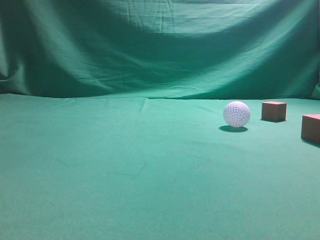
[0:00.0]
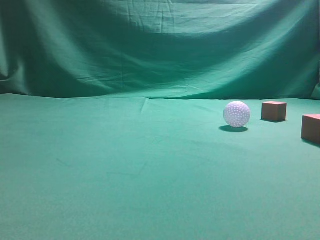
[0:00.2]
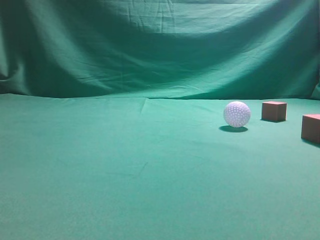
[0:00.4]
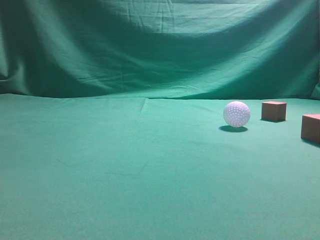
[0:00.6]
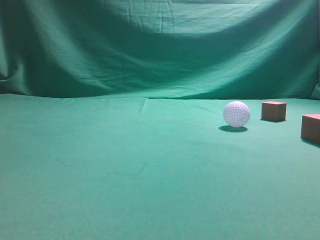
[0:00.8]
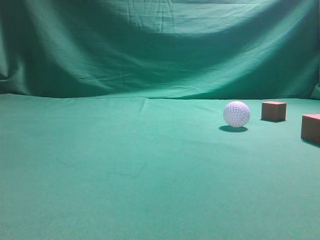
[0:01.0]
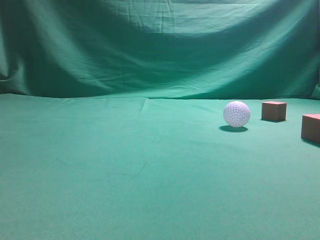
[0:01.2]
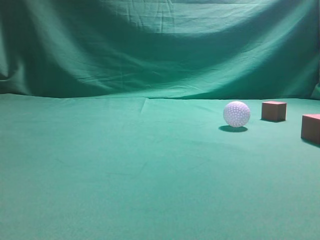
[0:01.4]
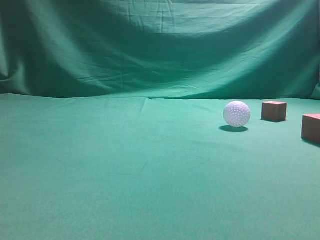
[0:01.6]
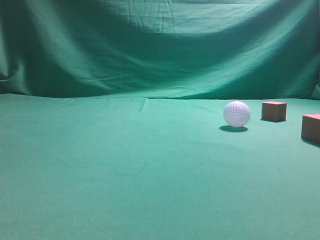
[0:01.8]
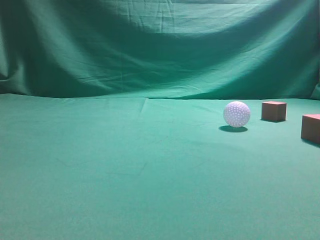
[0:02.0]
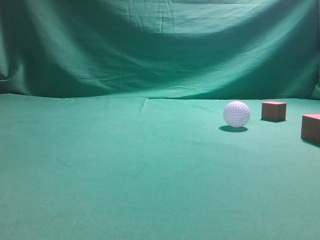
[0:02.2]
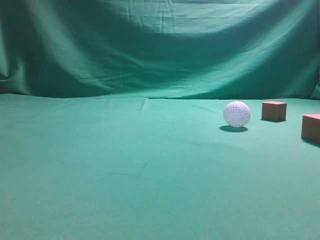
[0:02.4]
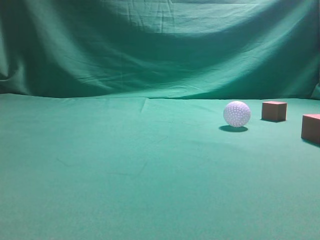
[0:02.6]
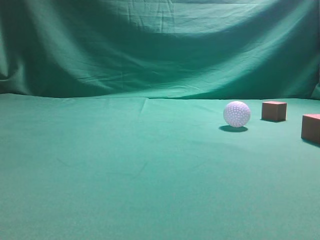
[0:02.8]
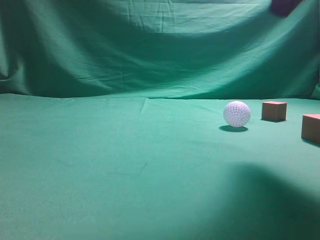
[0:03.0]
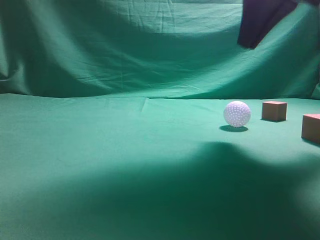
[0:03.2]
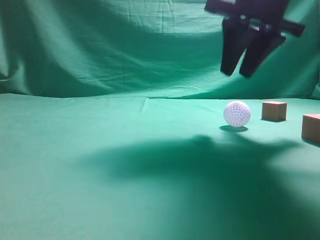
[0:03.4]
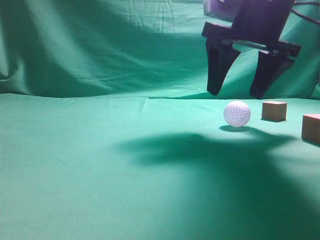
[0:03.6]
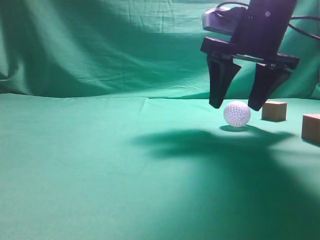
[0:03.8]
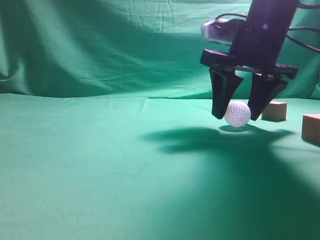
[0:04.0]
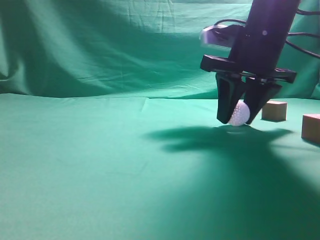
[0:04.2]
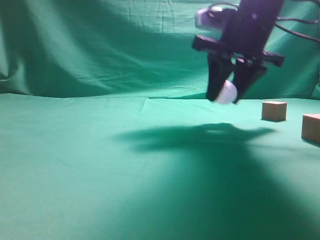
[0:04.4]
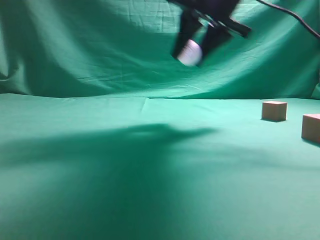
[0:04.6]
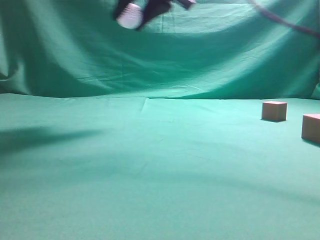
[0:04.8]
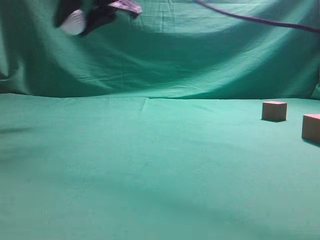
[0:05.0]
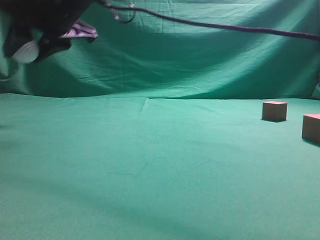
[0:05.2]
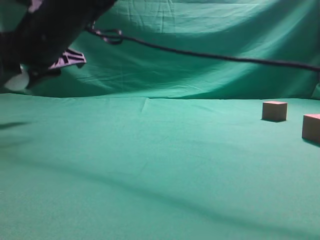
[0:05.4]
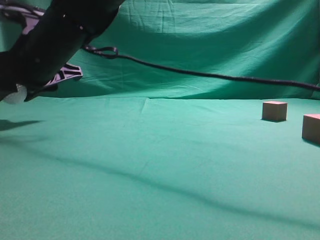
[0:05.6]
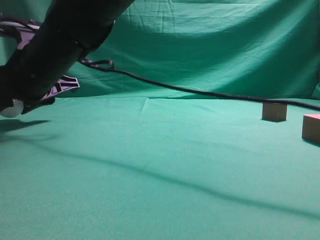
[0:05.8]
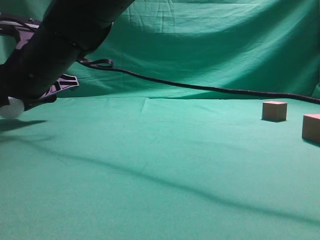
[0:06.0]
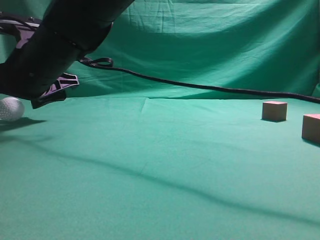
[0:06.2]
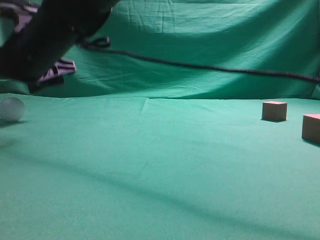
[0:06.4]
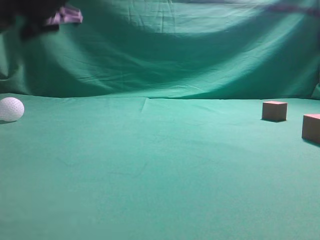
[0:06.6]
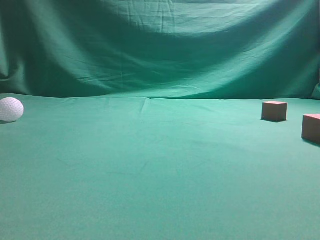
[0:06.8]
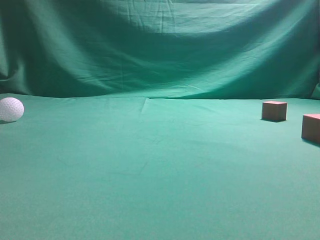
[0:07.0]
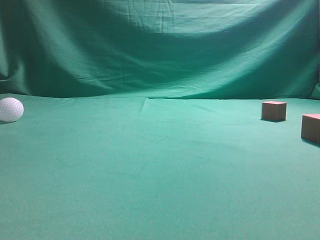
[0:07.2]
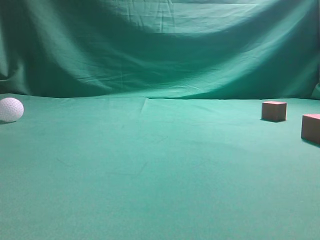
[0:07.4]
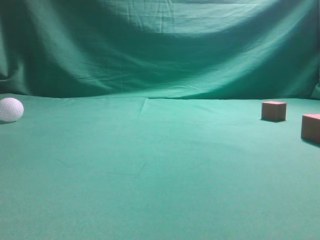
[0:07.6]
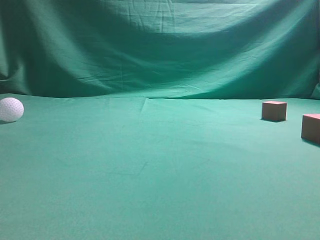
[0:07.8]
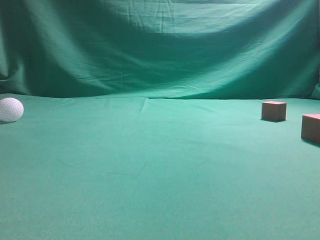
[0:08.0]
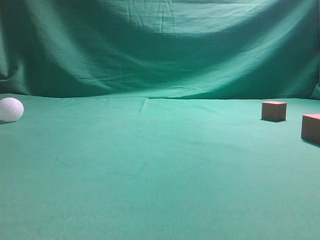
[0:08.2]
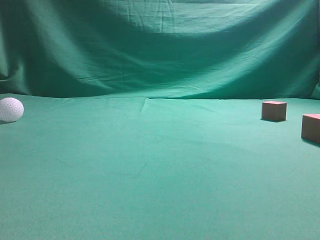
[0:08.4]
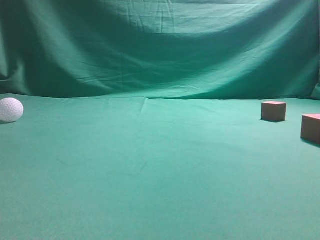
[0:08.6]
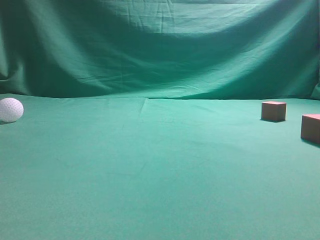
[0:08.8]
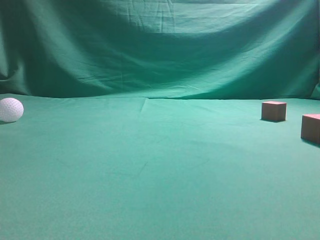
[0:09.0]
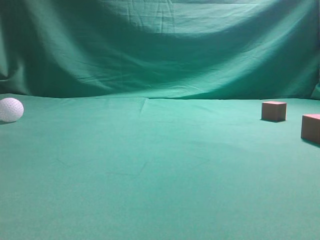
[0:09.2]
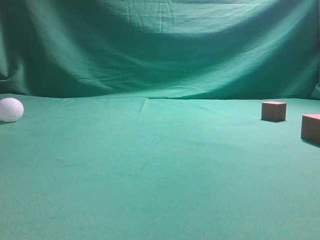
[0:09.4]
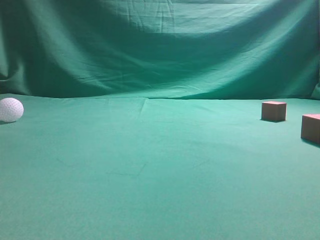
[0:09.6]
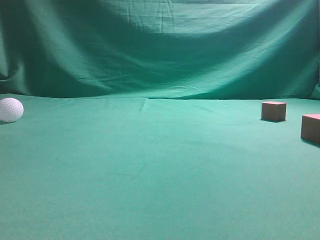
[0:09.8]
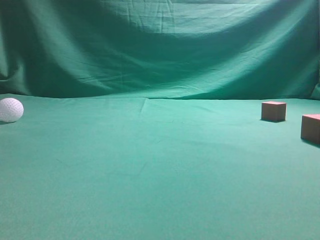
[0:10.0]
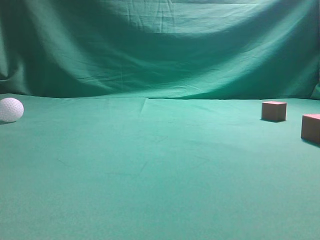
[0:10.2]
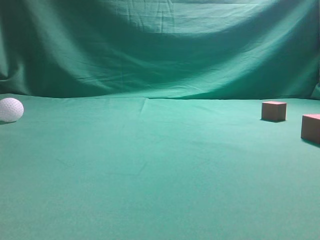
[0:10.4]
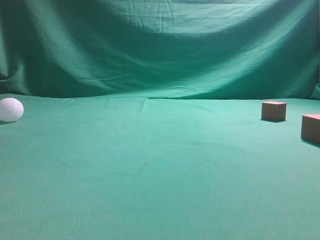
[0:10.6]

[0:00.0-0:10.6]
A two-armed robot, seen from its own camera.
Step, 0:00.0 to 0:03.6: Grasp the spherical object on the right side.
0:01.6 to 0:03.0: The right gripper moves forward and to the left, about 25 cm.
0:03.0 to 0:04.6: The right gripper heads forward and to the left, covering approximately 15 cm, goes downward and returns, roughly 10 cm each way, and opens up.
0:04.6 to 0:06.0: The right gripper heads to the left and downward, covering roughly 30 cm.
0:06.0 to 0:07.6: The right gripper goes approximately 40 cm upward and to the right, and closes up.
